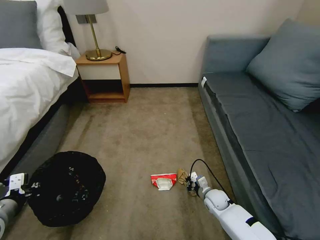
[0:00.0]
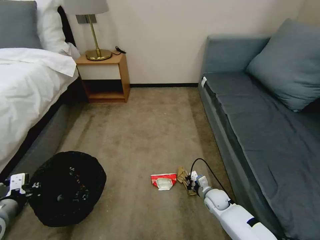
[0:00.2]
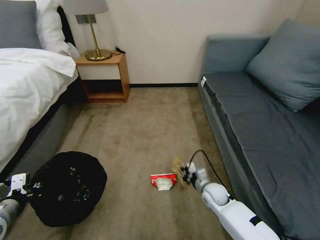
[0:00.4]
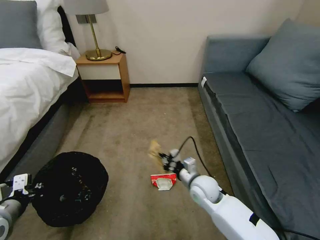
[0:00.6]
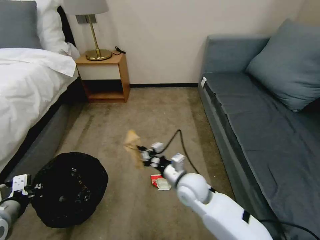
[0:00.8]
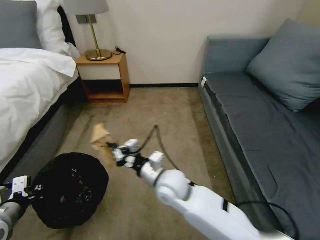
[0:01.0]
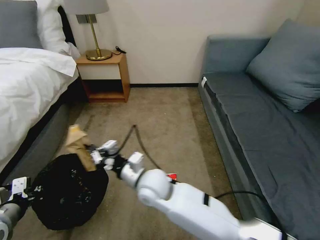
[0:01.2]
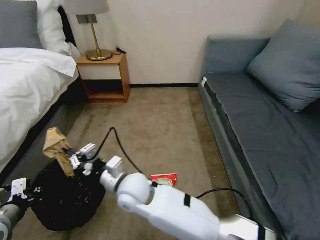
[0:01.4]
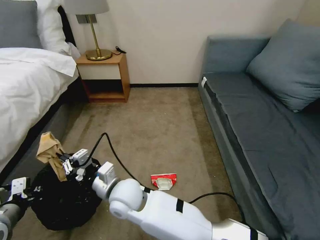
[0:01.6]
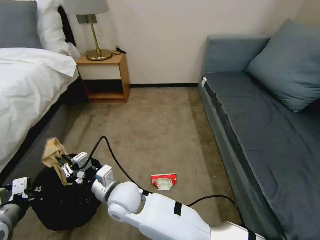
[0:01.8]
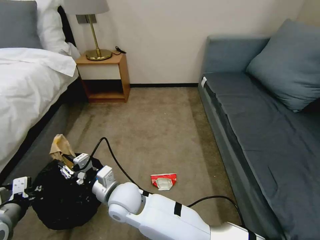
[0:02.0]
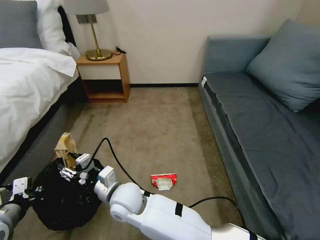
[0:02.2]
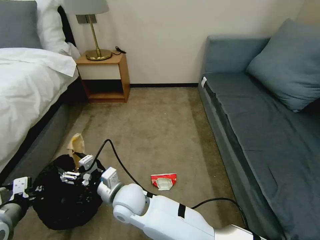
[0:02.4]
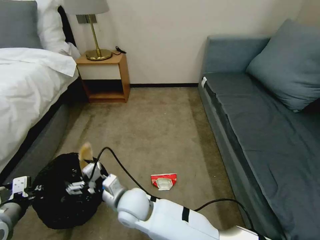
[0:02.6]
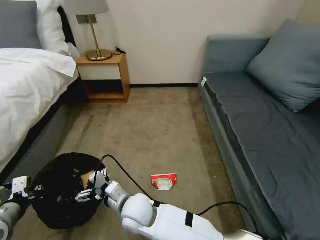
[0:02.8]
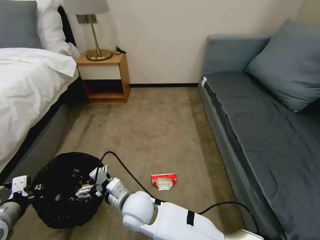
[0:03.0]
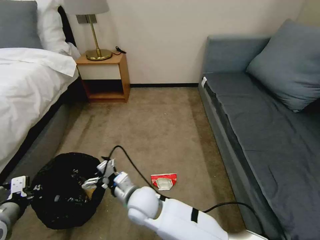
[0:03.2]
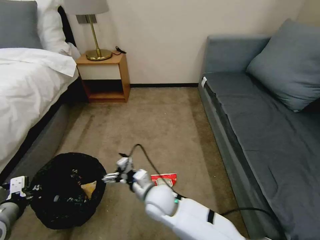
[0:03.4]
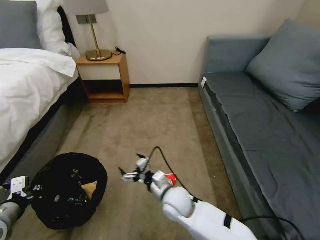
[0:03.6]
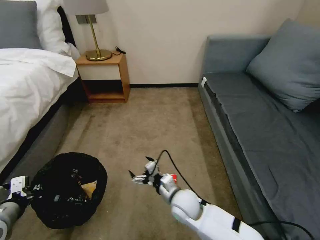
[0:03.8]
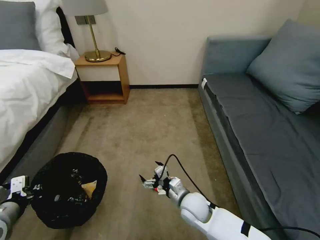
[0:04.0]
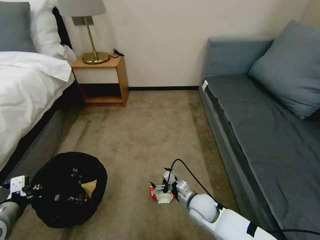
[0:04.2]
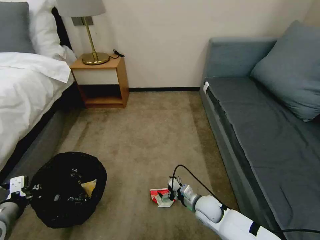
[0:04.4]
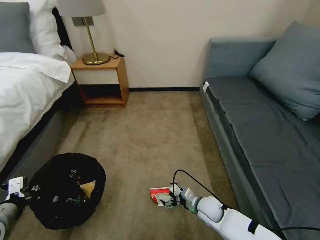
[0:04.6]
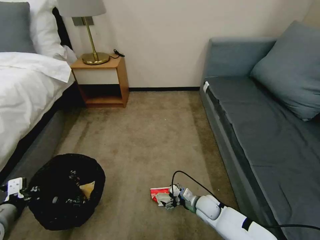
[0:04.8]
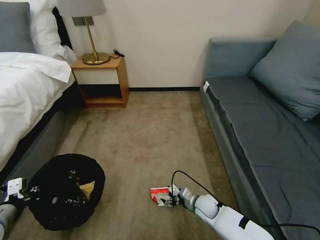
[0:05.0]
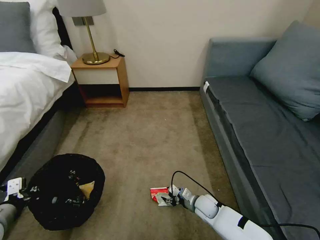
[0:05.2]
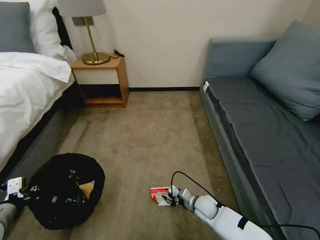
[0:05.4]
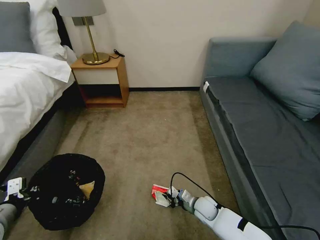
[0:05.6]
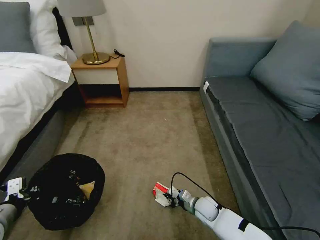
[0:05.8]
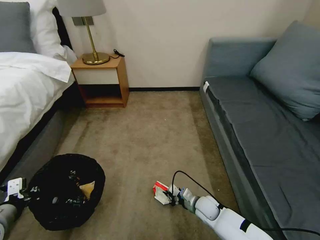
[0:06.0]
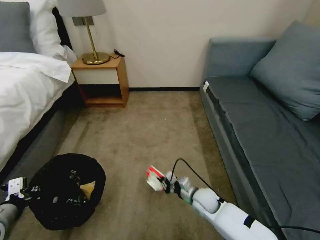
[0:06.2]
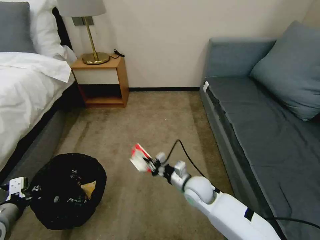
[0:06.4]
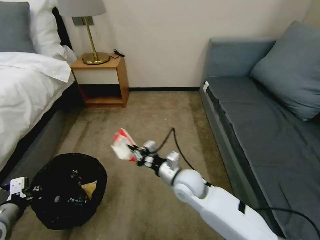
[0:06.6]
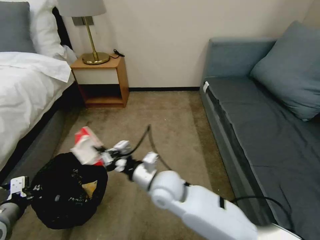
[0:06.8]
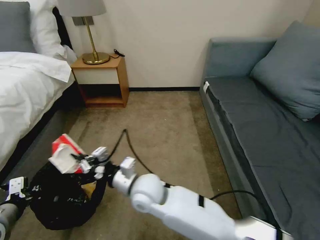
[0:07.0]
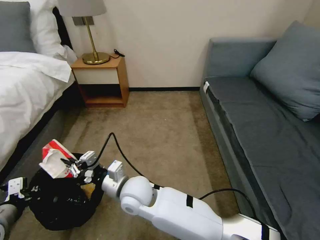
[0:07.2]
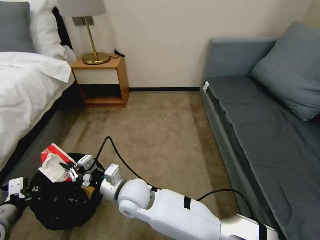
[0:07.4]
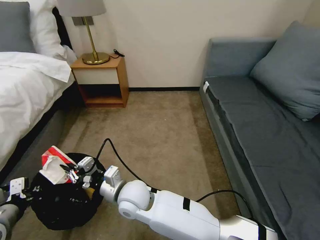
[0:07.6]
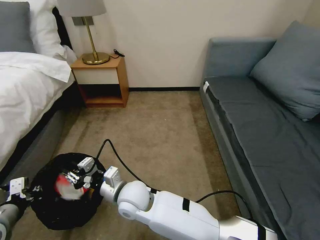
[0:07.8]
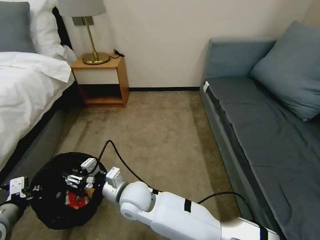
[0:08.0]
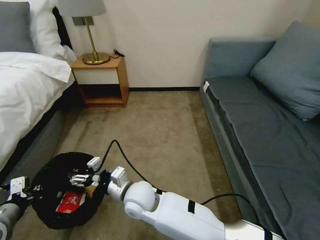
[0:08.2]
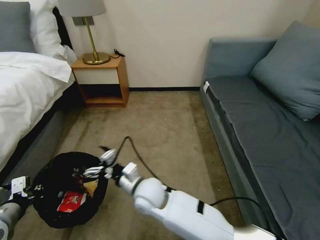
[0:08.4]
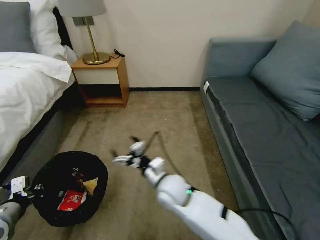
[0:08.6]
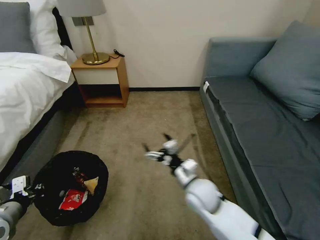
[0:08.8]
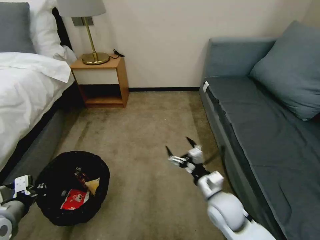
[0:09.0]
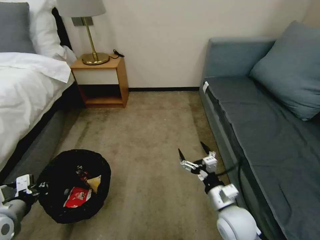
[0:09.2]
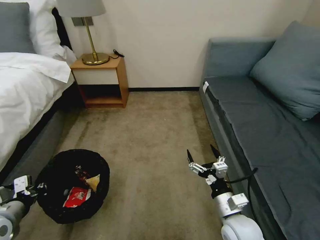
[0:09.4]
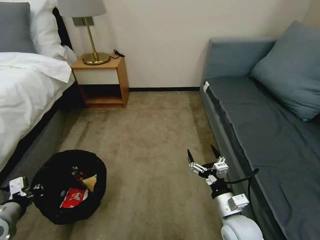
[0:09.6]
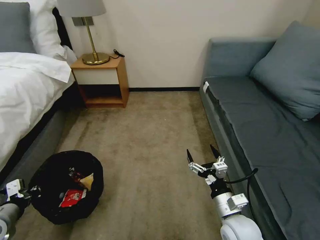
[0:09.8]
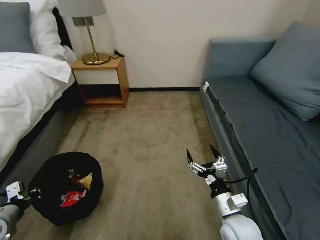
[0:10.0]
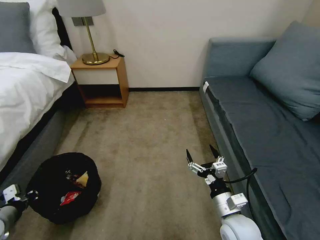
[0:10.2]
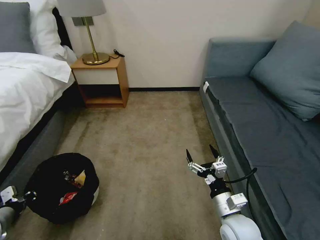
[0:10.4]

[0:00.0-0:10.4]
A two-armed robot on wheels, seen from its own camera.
Task of the whole recording: Pick up the trash bin, then pick up the garbage on the floor and place it into the trash bin.
0:00.0 to 0:01.4: The right gripper goes some 40 cm to the left and upward.
0:01.4 to 0:03.0: The right gripper heads downward, covering about 5 cm, and opens up.
0:03.0 to 0:04.4: The right gripper is displaced to the right and downward by approximately 30 cm.
0:04.4 to 0:06.0: The right gripper ends up about 5 cm from where it was, and closes up.
0:06.0 to 0:07.4: The right gripper travels to the left and upward by roughly 35 cm.
0:07.4 to 0:09.0: The right gripper moves to the right, approximately 30 cm, and opens.
0:09.0 to 0:10.4: The left gripper travels to the left and downward by about 10 cm. The right gripper travels backward by some 5 cm.

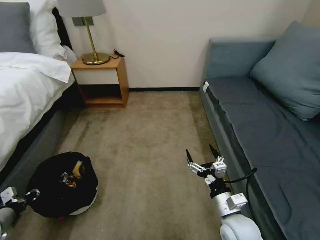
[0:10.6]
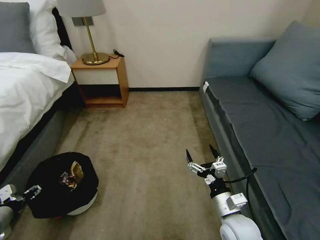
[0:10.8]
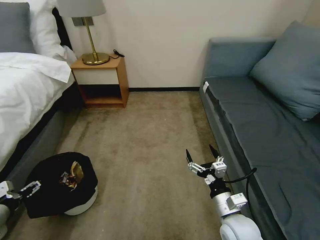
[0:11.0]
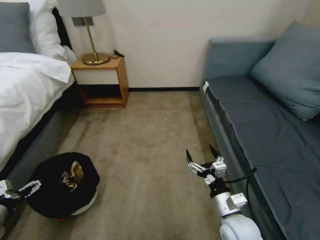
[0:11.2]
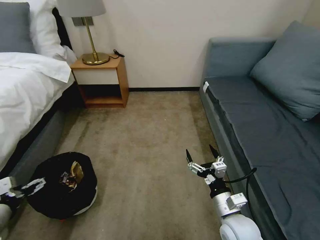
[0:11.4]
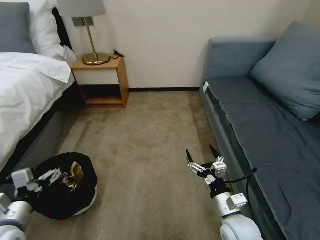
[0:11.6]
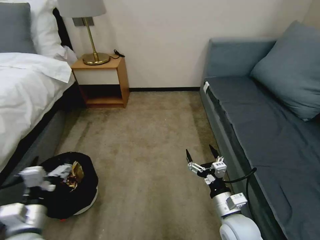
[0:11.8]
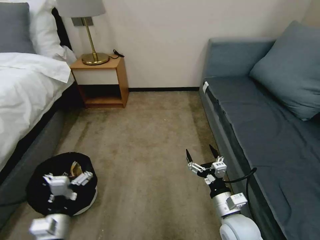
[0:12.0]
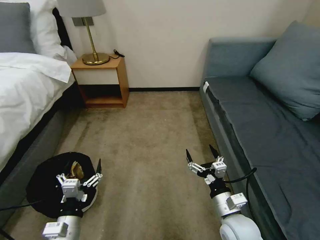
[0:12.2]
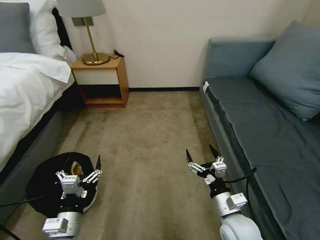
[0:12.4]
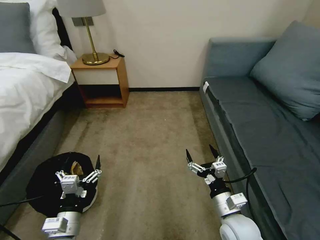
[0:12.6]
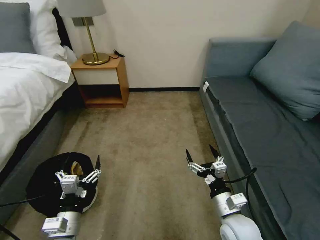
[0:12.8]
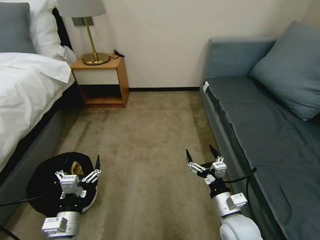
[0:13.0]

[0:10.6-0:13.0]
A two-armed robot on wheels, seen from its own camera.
Task of the whole recording: Pick up the trash bin, then pick up the garbage on the floor and place it into the trash bin.
0:10.6 to 0:11.8: The left gripper heads to the right, covering about 20 cm, and opens its fingers.
0:11.8 to 0:13.0: The left gripper shifts roughly 10 cm to the right and downward.

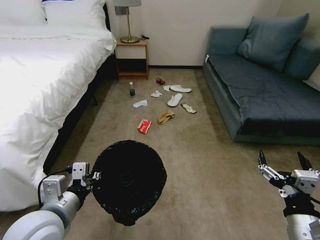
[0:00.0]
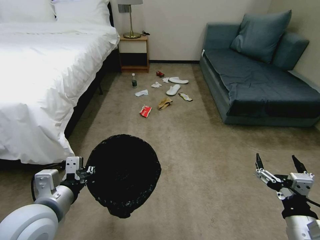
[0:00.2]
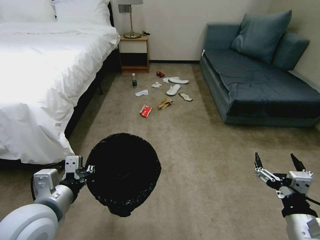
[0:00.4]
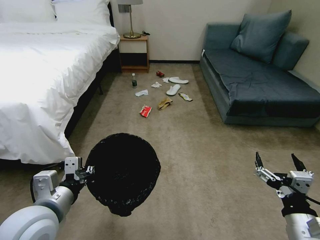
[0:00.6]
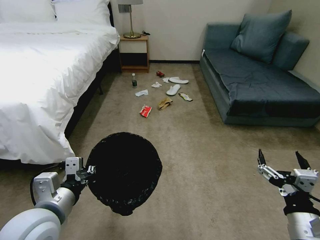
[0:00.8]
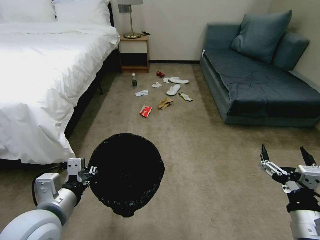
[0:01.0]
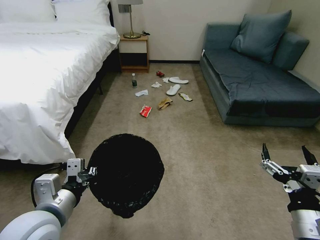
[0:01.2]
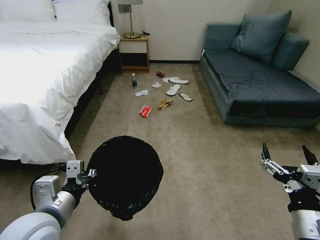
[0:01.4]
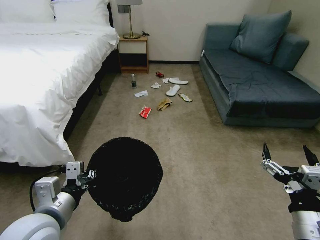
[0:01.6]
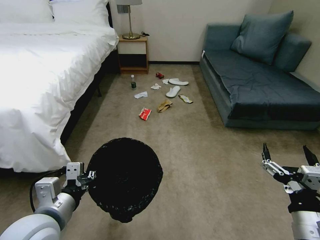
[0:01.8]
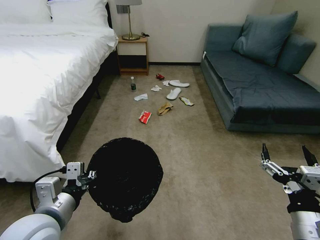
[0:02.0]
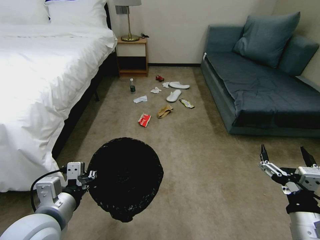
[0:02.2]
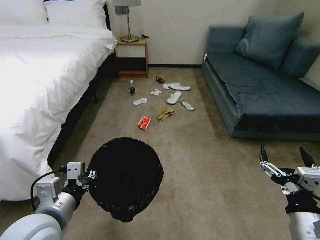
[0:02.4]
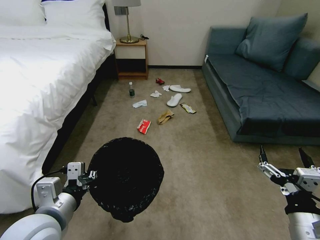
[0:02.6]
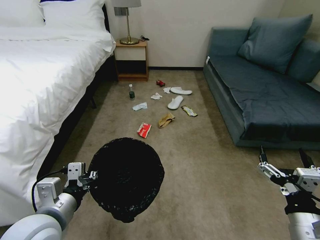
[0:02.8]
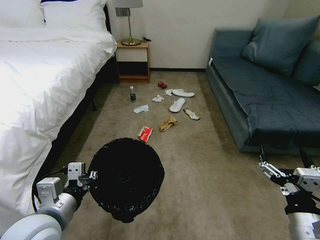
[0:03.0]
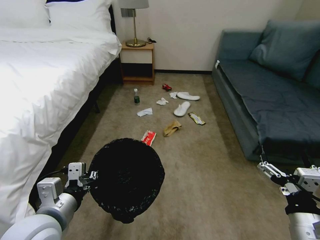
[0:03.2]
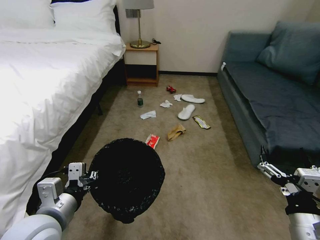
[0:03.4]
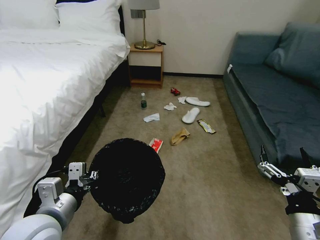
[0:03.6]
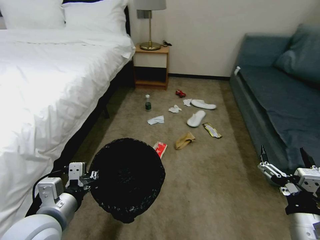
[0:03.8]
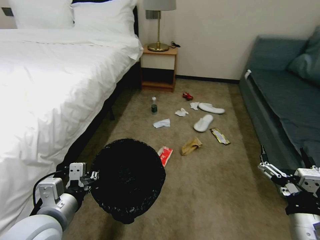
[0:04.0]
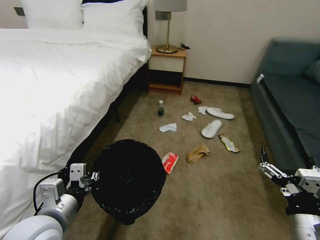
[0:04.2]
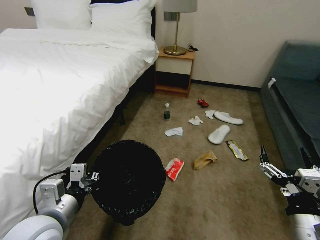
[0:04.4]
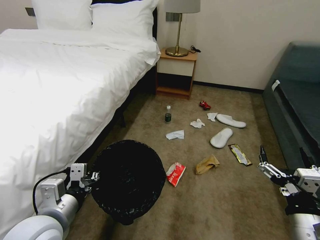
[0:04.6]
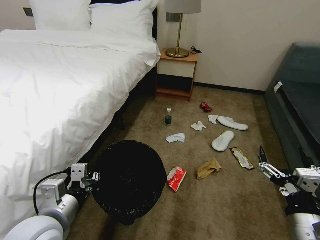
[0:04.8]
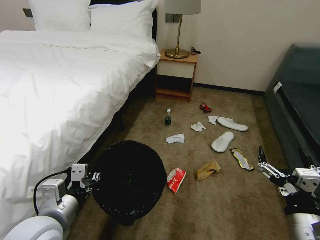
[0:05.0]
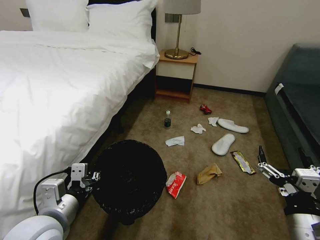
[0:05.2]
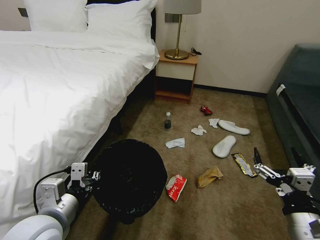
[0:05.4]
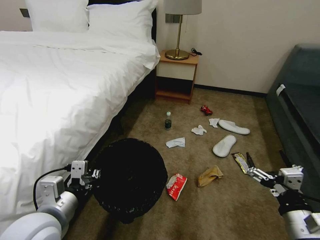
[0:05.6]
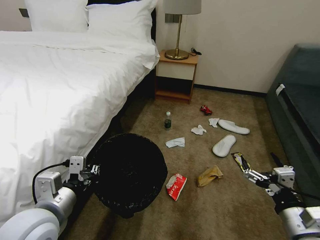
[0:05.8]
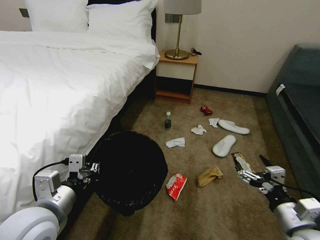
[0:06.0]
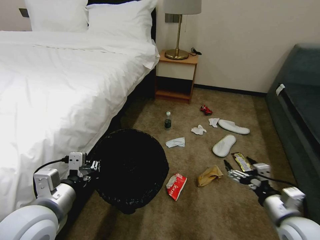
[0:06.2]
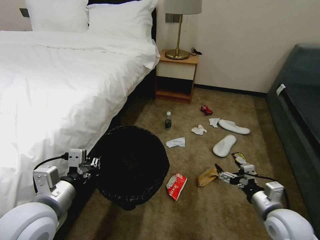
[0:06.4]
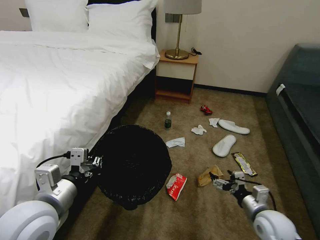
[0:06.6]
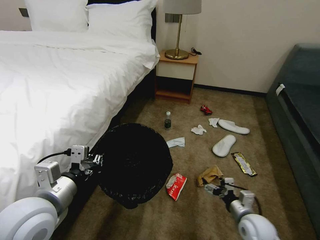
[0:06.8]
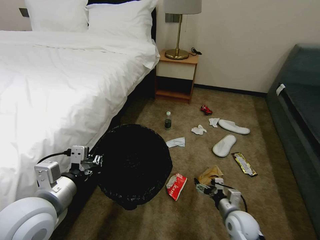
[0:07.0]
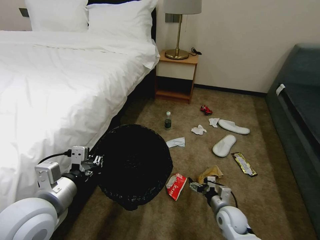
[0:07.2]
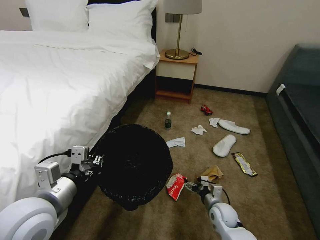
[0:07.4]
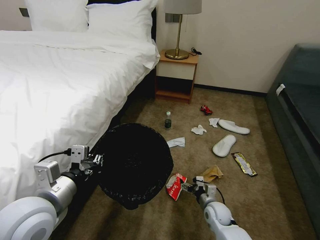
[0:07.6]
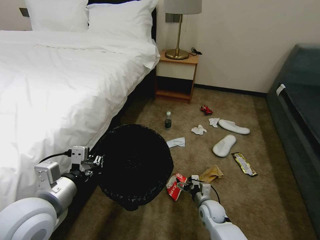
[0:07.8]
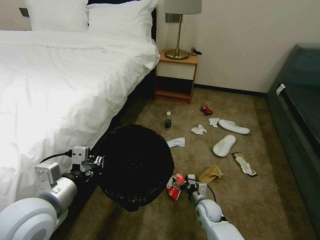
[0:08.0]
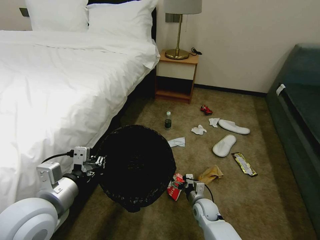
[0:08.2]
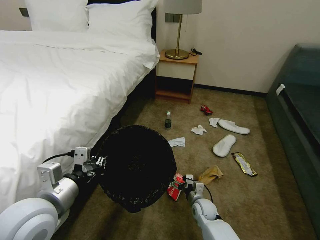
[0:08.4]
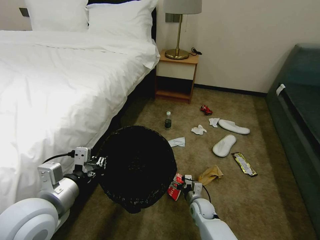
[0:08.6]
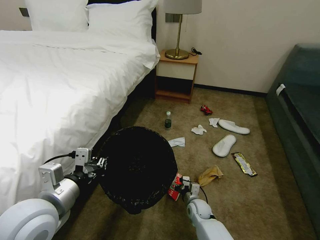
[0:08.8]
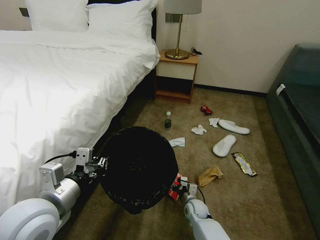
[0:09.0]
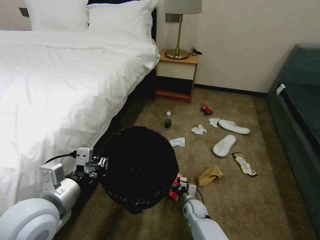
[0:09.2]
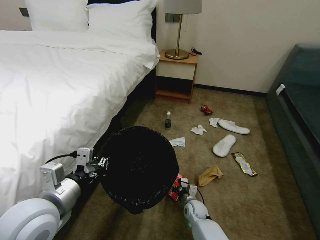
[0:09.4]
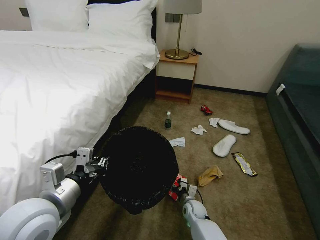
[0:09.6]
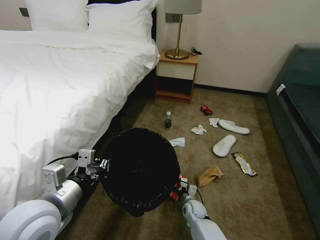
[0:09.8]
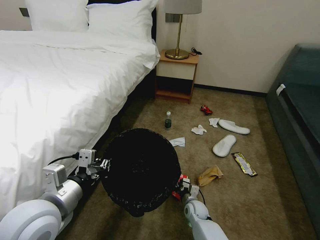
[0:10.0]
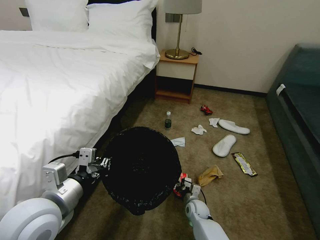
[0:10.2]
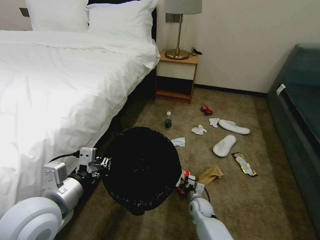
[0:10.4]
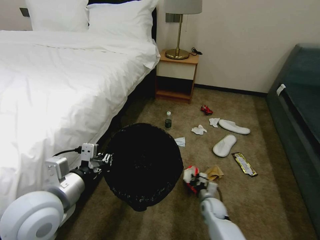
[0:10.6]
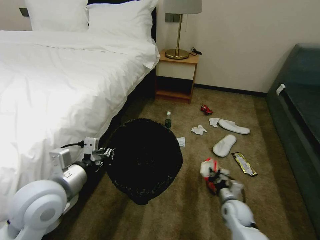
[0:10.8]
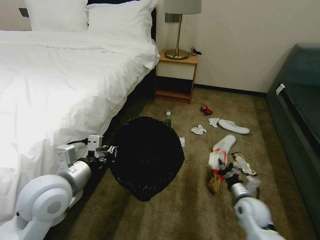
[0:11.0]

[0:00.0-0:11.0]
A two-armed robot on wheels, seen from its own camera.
Task of the whole recording: Pick up the trash bin, then pick up the garbage on the floor and place it into the trash bin.
0:04.8 to 0:06.2: The right gripper moves forward, approximately 5 cm.
0:06.2 to 0:07.8: The right gripper travels downward, to the left and forward by approximately 30 cm.
0:07.8 to 0:09.4: The right gripper moves downward and to the left, some 5 cm.
0:09.4 to 0:11.0: The left gripper heads forward, covering some 5 cm. Meanwhile the right gripper shifts approximately 25 cm upward and to the right, and closes its fingers.
